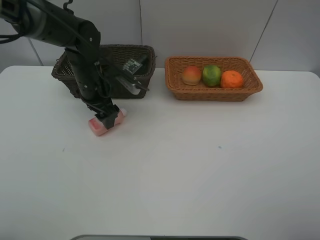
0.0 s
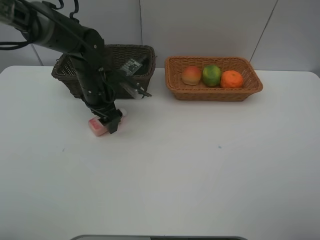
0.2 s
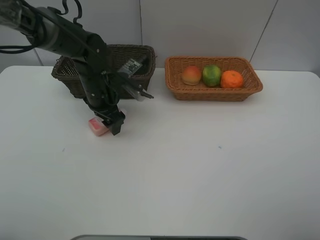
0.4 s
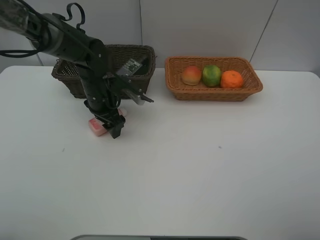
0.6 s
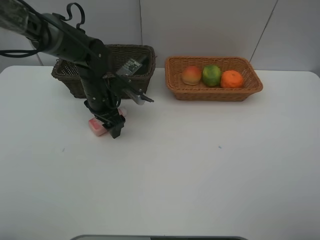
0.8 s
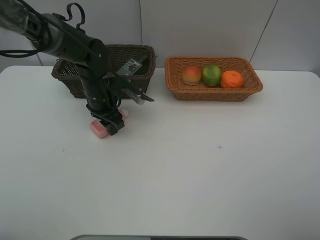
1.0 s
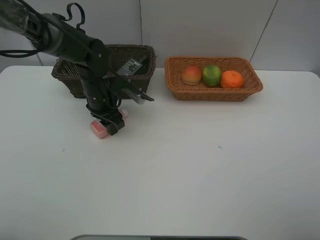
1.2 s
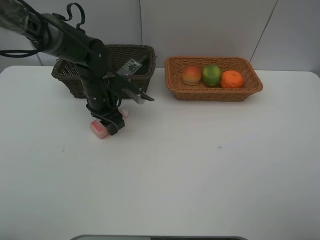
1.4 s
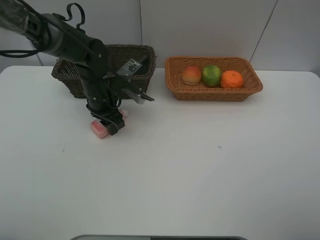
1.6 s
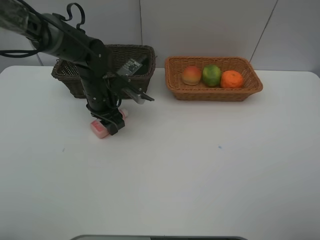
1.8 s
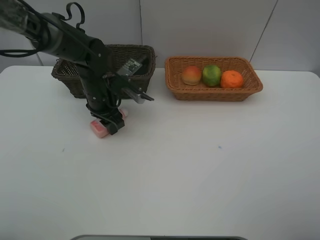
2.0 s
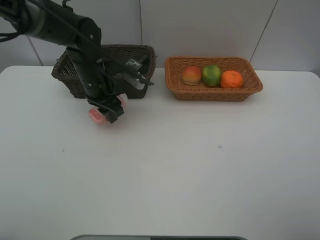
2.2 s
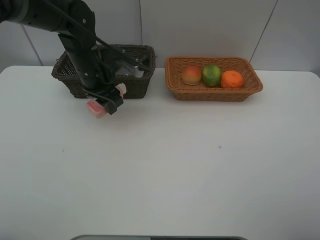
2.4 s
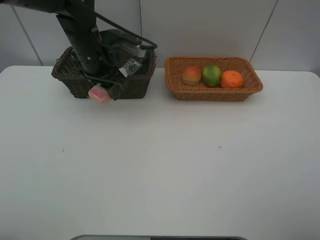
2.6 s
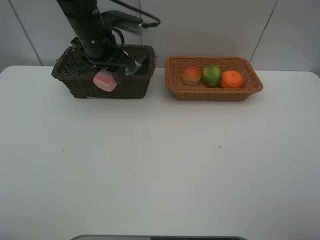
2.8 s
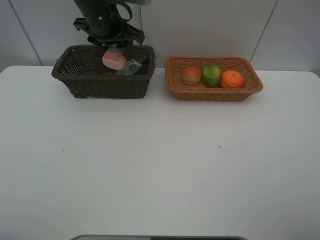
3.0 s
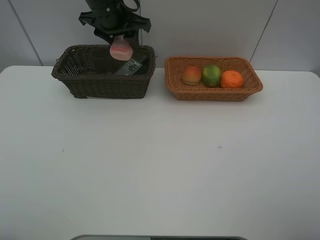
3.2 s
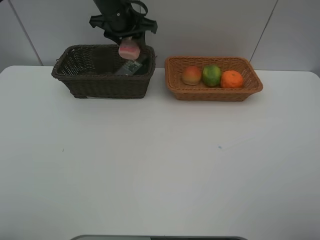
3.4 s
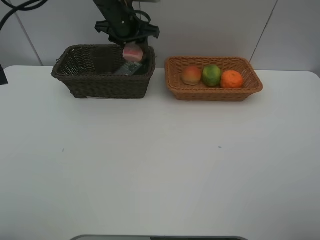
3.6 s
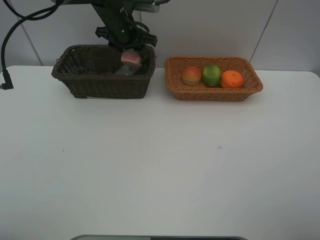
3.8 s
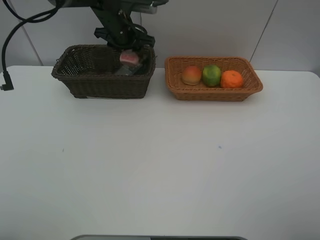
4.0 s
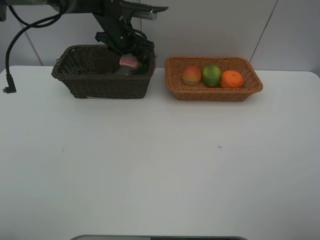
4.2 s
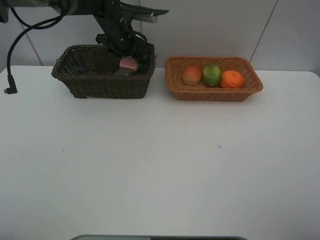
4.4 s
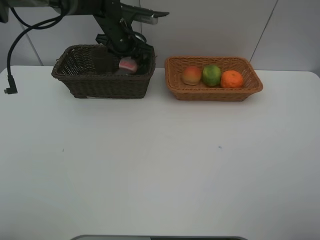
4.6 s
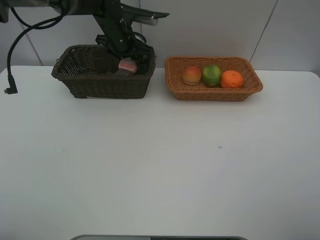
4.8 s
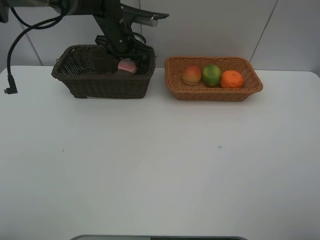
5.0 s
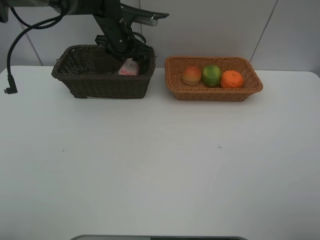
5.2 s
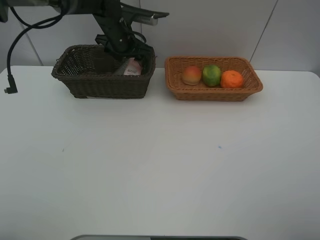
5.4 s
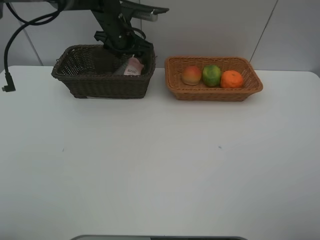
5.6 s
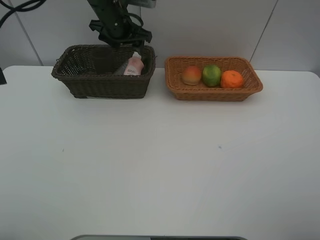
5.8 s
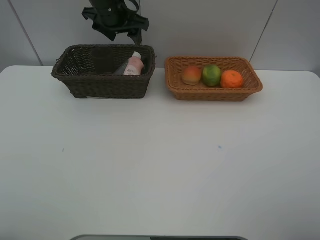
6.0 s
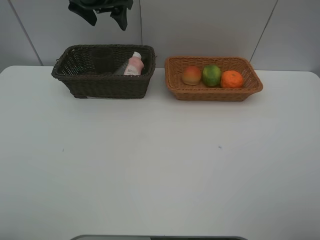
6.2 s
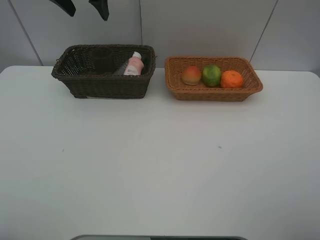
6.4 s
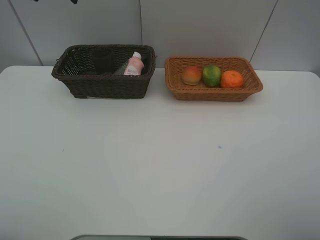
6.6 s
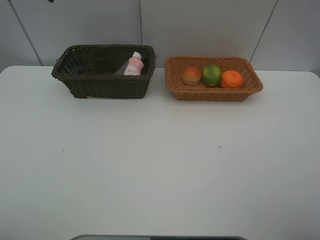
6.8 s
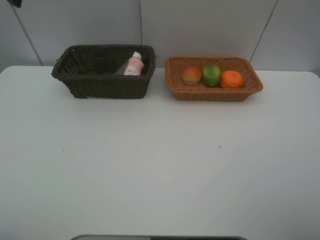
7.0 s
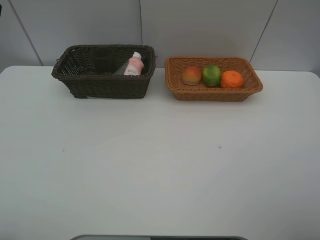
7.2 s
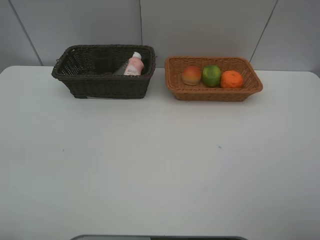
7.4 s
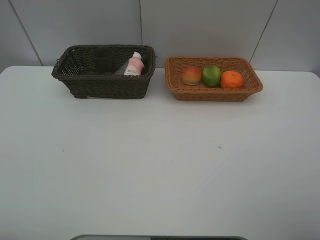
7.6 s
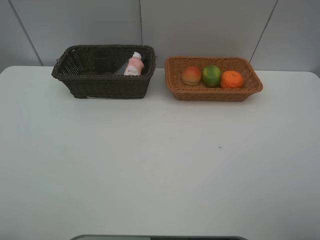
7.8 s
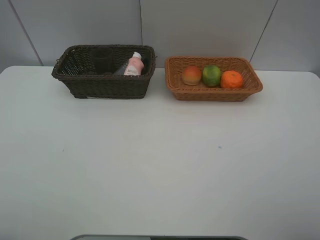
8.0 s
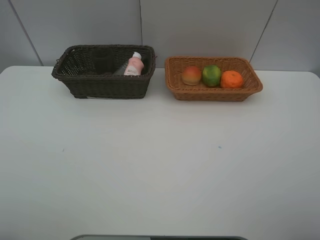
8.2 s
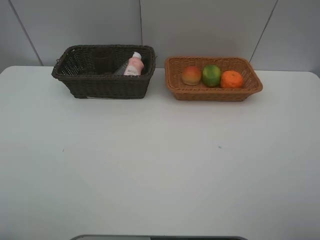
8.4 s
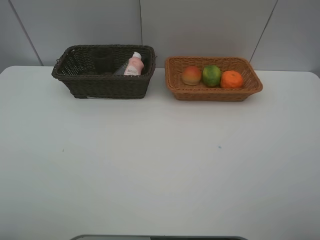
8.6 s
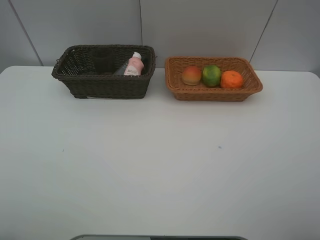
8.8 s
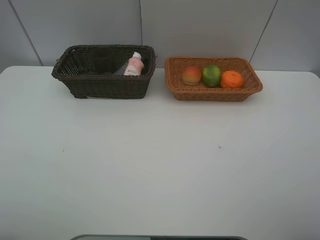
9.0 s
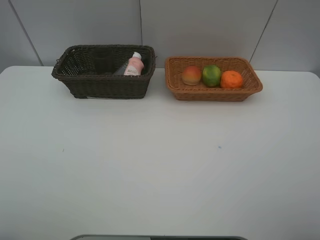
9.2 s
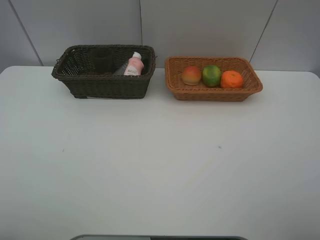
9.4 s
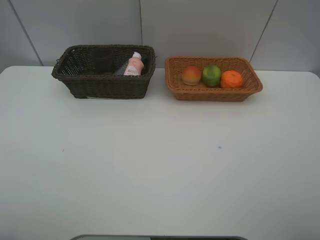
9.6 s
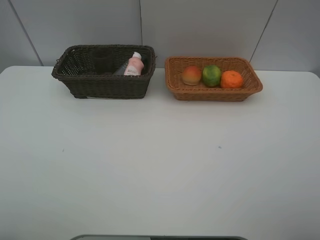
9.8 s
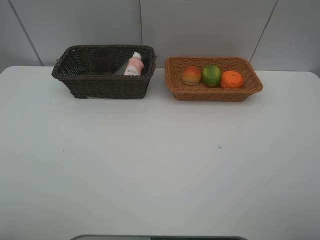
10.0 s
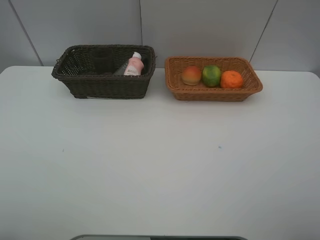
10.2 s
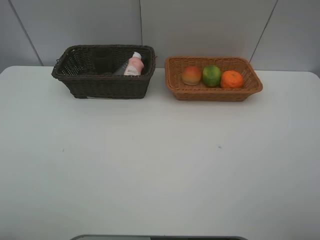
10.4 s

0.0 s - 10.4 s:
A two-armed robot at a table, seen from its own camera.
Task of the whole recording: place multiple objects separately in different baskets.
0.0 s - 1.4 s: There are only small adjustments of the grippers.
1.4 s - 3.0 s: The left gripper goes roughly 15 cm upward.
3.0 s - 4.4 s: The left gripper heads downward and forward, covering roughly 10 cm.
4.4 s - 6.0 s: The left gripper goes roughly 10 cm upward.
6.0 s - 7.4 s: The left gripper shifts some 35 cm backward and to the left.
9.0 s - 10.4 s: Neither gripper changes place.

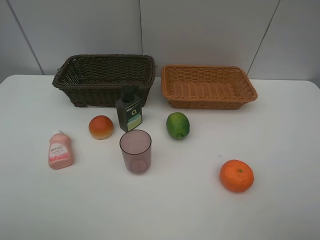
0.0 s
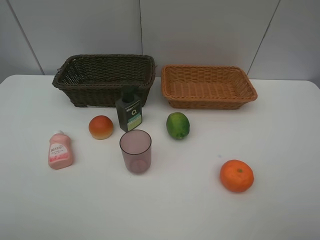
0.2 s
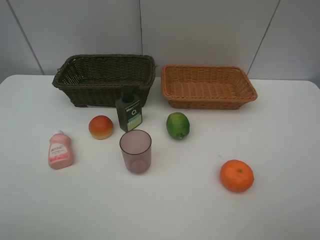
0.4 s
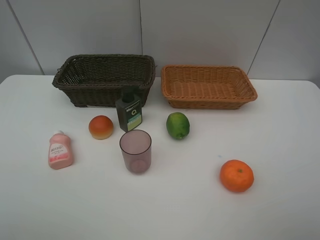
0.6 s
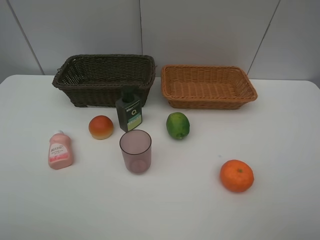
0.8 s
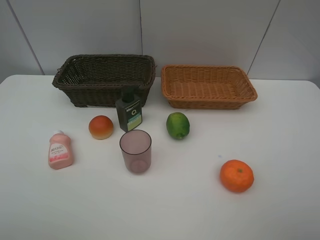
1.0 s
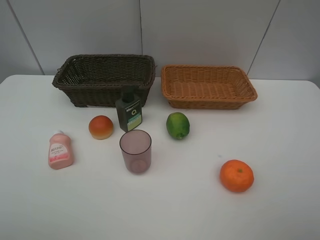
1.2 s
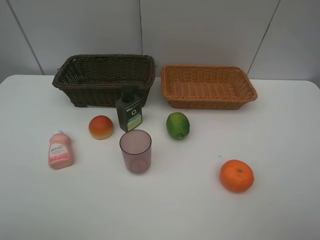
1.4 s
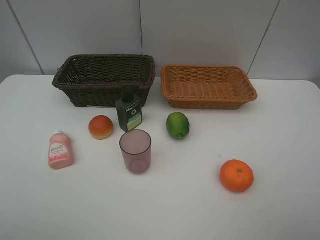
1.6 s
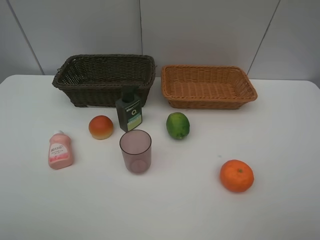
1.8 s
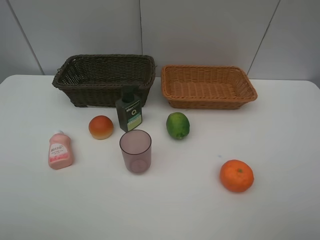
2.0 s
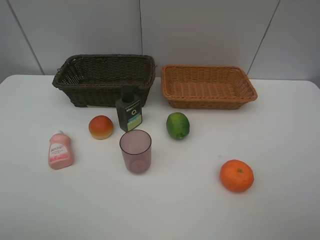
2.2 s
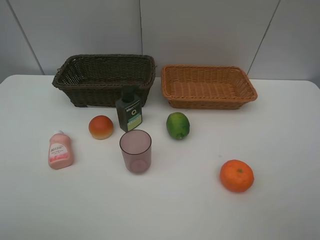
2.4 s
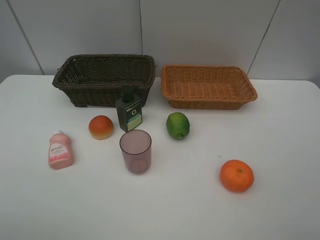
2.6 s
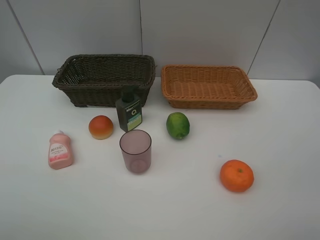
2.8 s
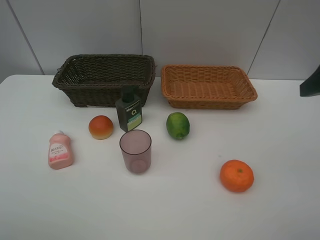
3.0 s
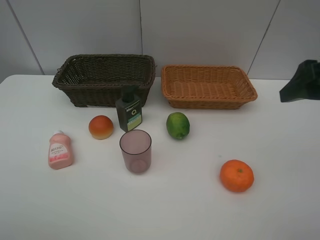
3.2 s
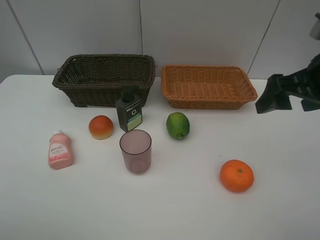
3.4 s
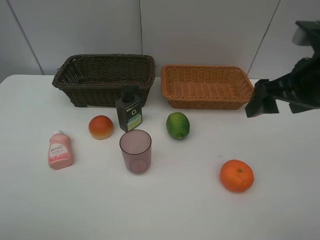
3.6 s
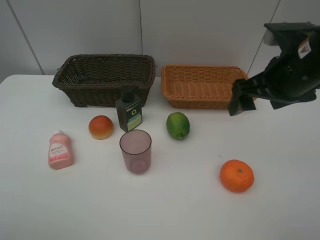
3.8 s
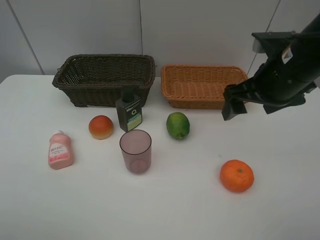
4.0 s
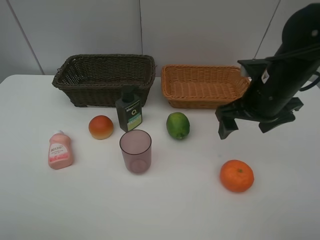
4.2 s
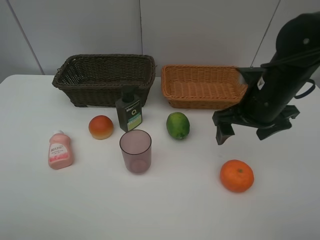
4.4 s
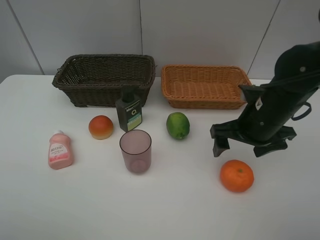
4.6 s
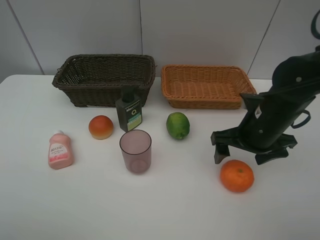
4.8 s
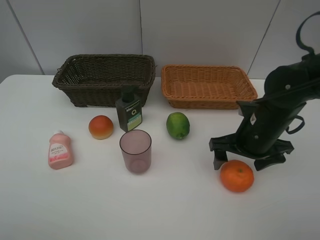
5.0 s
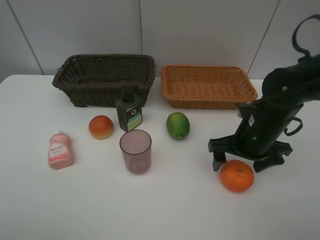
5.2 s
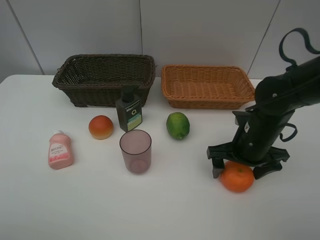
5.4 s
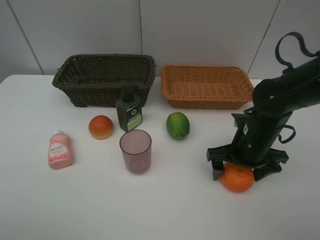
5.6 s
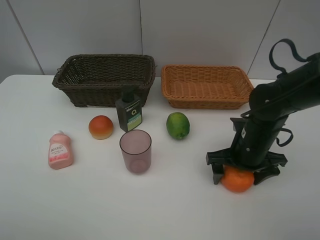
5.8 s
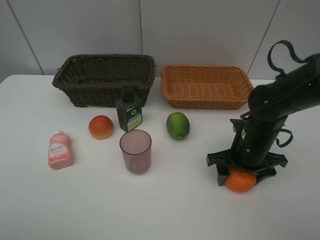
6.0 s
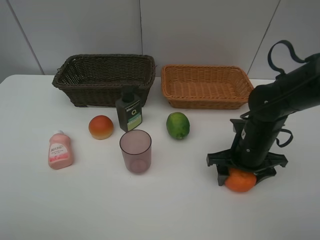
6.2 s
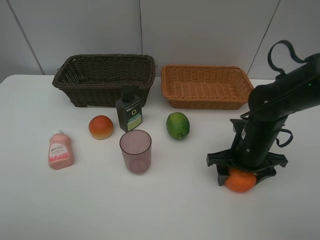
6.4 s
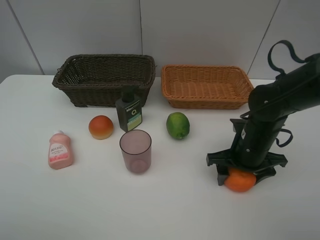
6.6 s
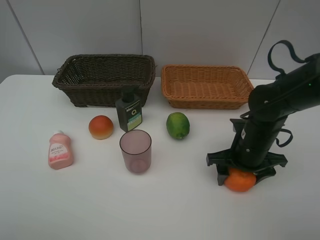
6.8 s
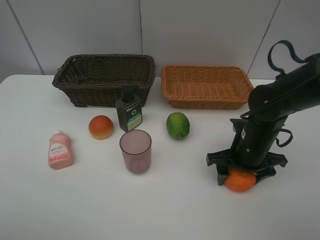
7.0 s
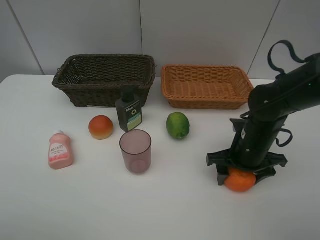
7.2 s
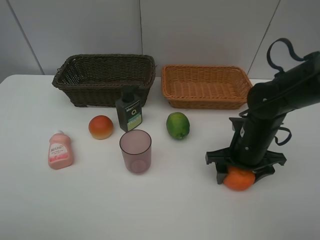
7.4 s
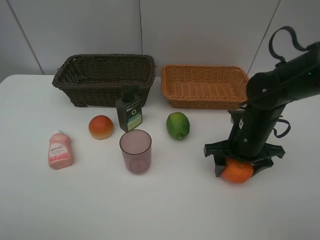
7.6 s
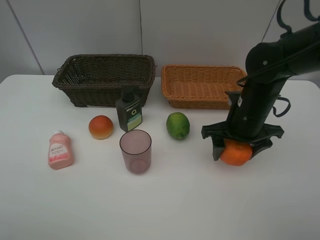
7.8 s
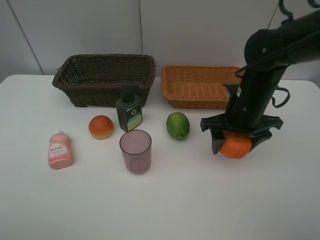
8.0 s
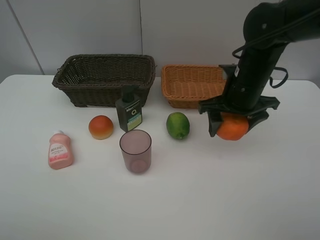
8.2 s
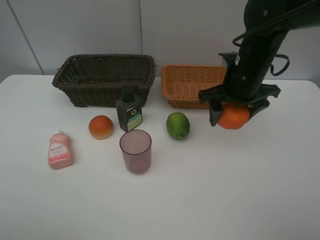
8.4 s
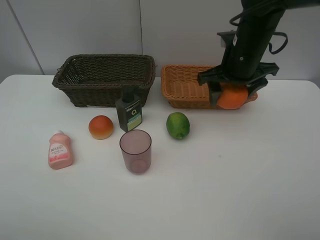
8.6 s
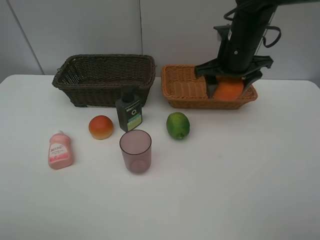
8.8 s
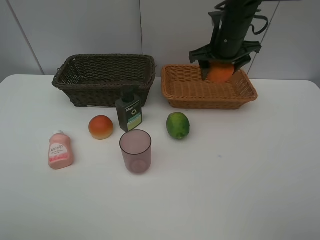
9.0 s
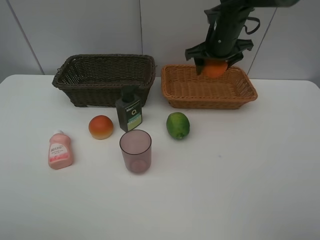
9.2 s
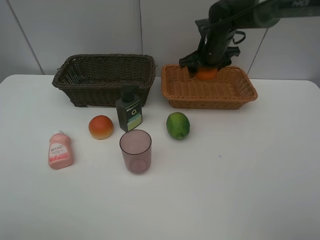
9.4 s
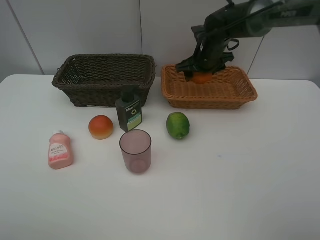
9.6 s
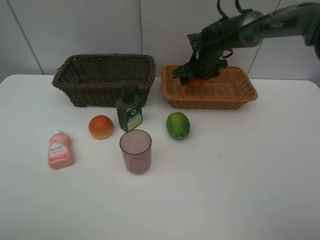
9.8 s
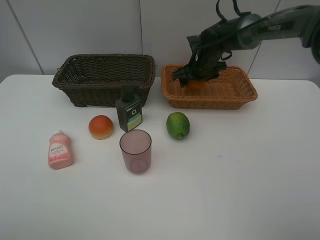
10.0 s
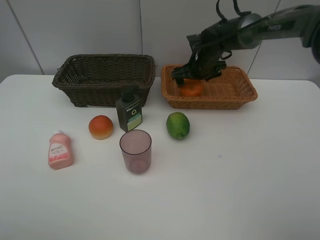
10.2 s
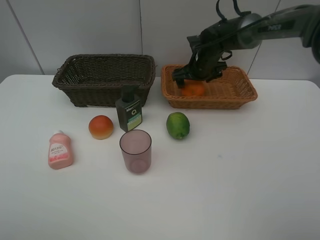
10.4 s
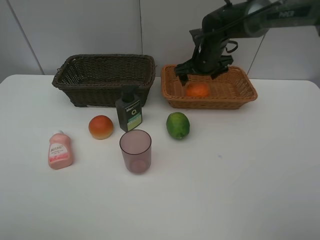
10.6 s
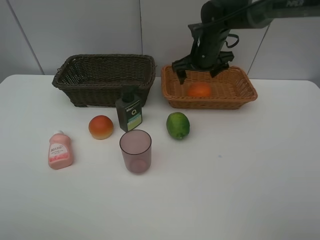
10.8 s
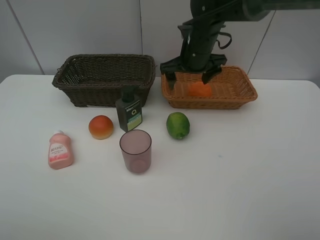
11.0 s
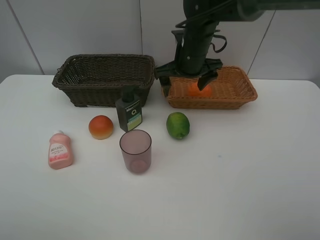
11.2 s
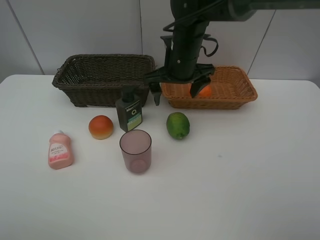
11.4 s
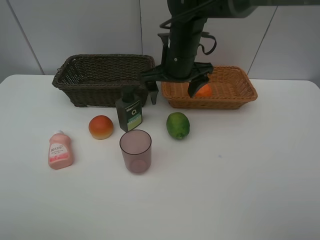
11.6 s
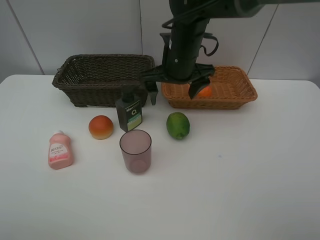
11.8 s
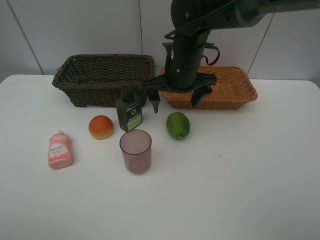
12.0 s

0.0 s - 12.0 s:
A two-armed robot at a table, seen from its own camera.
Task of the whole recording: place multiple objects separately in different baskets.
0.0 s - 1.6 s: The two grippers keep their place.
3.0 s - 4.4 s: The right gripper moves downward, to the left and forward, some 20 cm.
4.4 s - 6.0 s: The right gripper is displaced downward by approximately 10 cm, and closes.
6.0 s - 7.6 s: There are only small adjustments of the grippers.
7.6 s - 9.0 s: The right gripper goes roughly 20 cm forward and upward.
9.0 s - 10.4 s: The right gripper heads downward and forward, covering some 10 cm, and opens its fingers.
10.4 s - 12.0 s: The right gripper moves backward, to the left and upward, roughly 15 cm.
